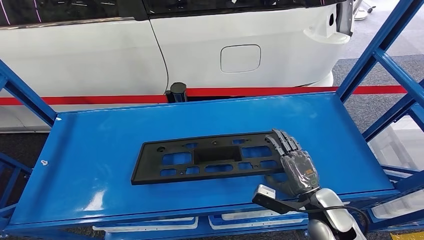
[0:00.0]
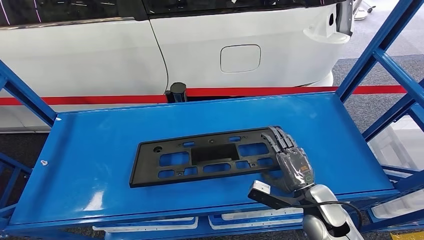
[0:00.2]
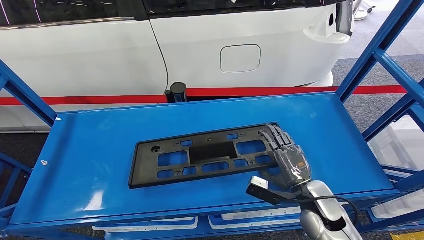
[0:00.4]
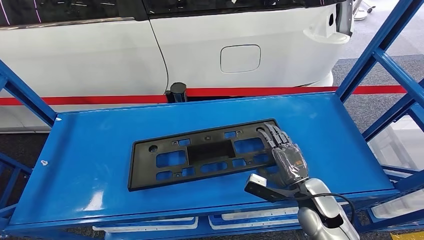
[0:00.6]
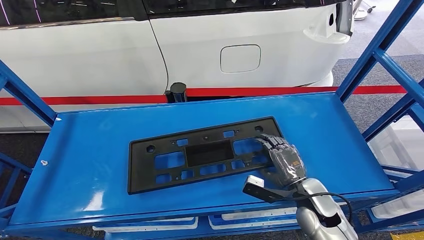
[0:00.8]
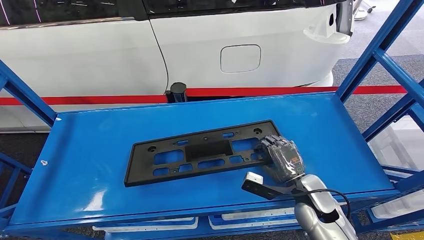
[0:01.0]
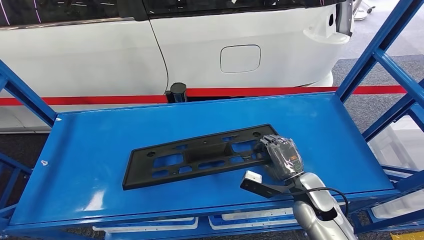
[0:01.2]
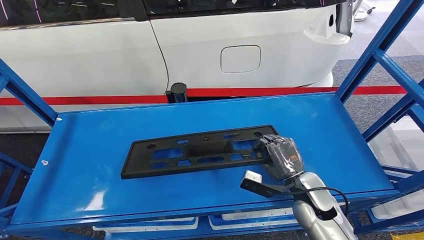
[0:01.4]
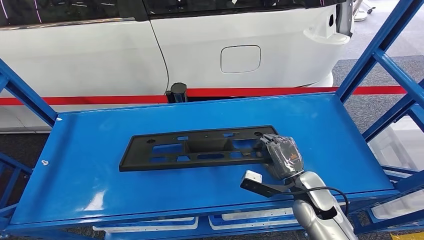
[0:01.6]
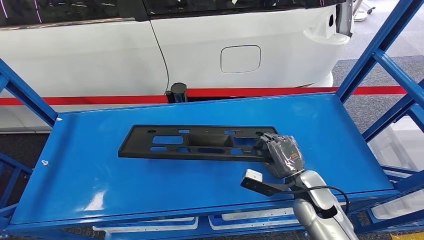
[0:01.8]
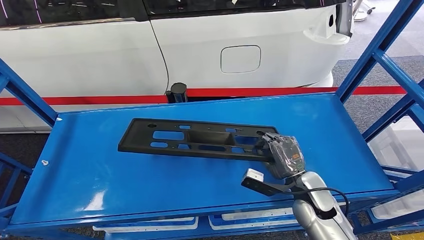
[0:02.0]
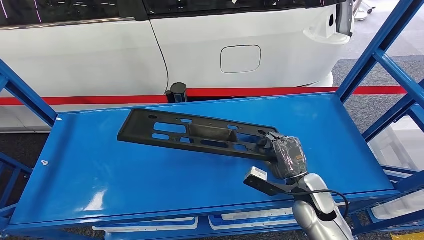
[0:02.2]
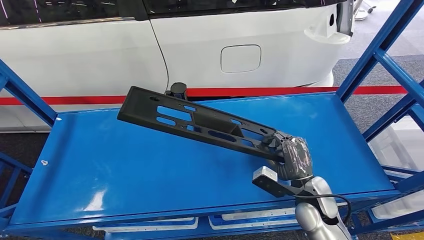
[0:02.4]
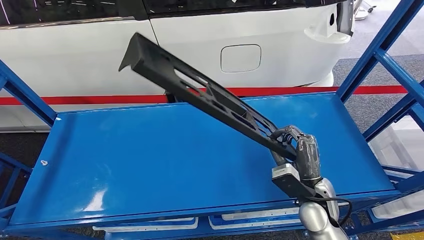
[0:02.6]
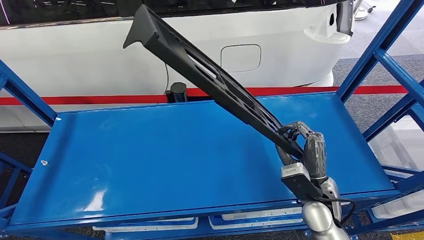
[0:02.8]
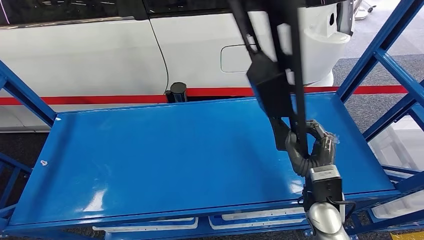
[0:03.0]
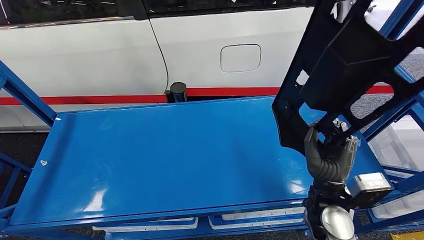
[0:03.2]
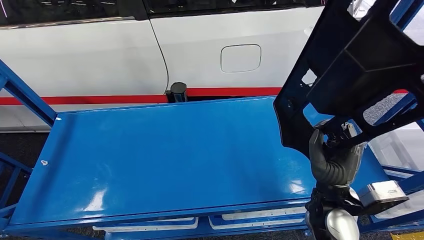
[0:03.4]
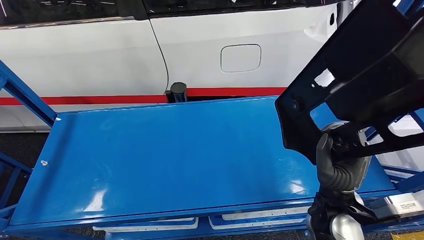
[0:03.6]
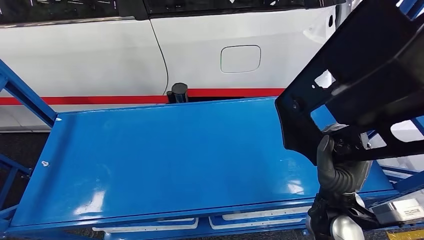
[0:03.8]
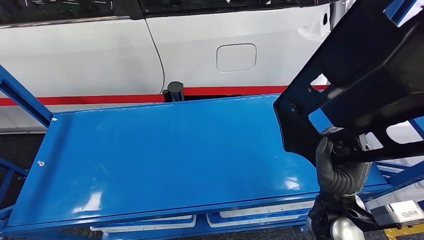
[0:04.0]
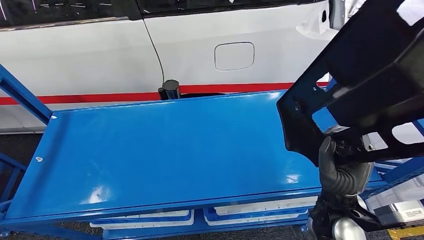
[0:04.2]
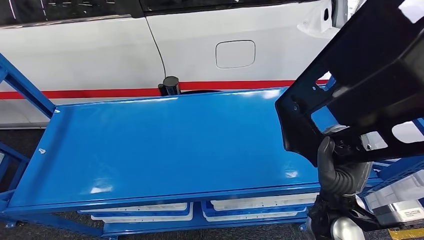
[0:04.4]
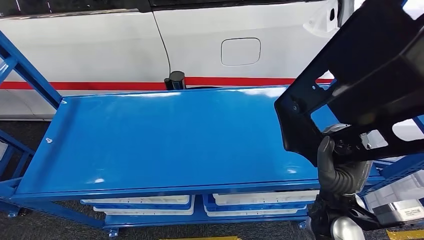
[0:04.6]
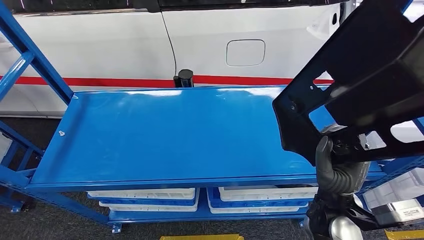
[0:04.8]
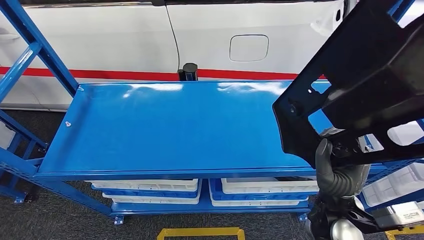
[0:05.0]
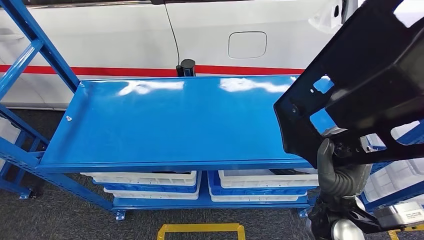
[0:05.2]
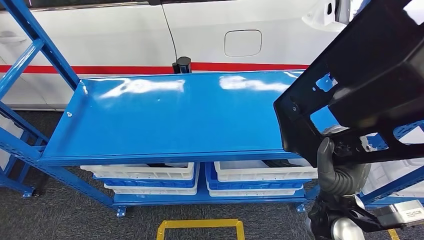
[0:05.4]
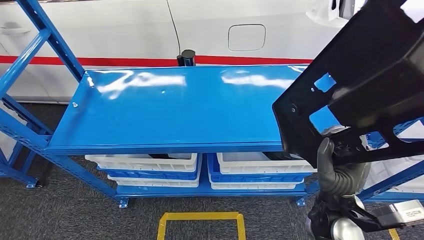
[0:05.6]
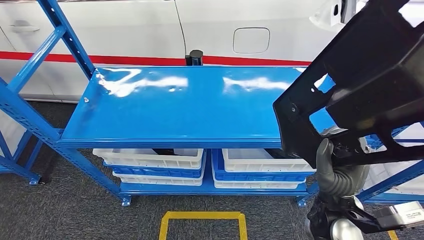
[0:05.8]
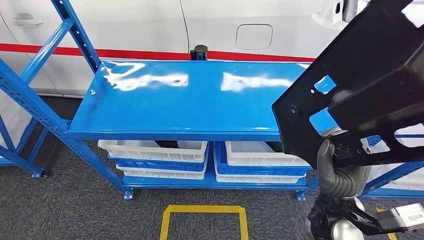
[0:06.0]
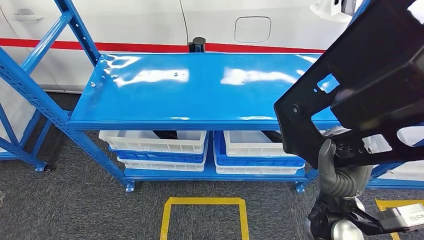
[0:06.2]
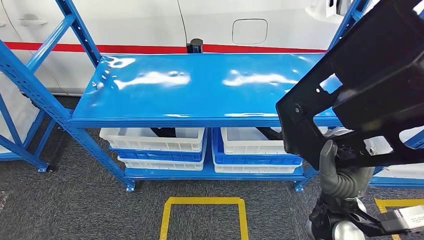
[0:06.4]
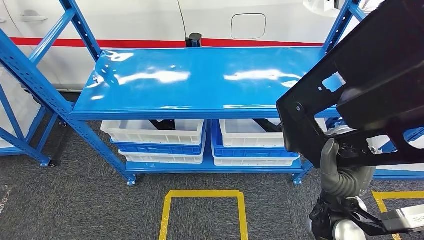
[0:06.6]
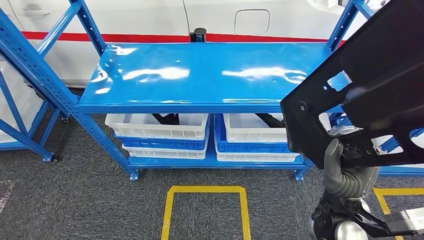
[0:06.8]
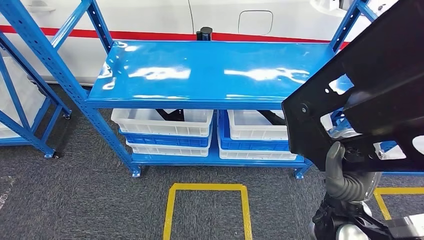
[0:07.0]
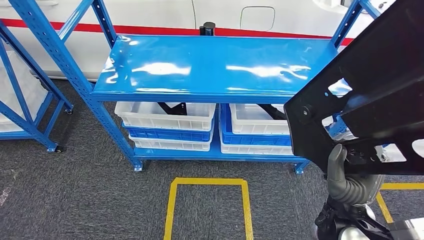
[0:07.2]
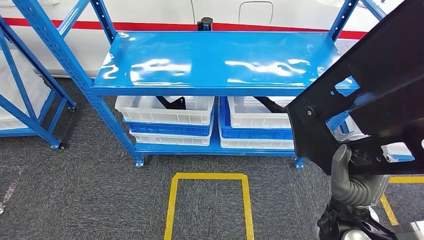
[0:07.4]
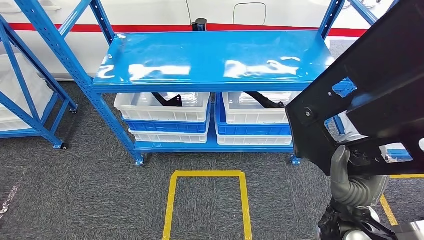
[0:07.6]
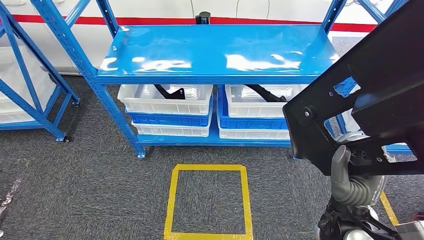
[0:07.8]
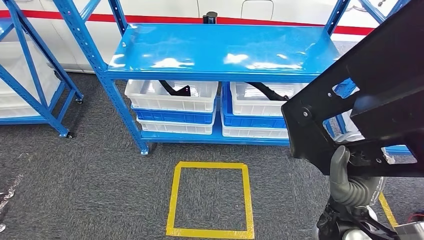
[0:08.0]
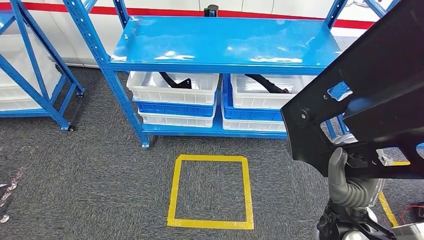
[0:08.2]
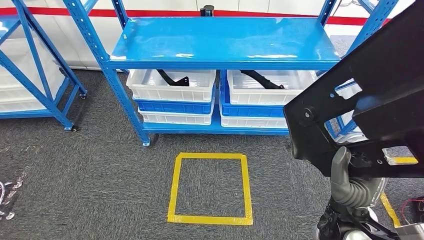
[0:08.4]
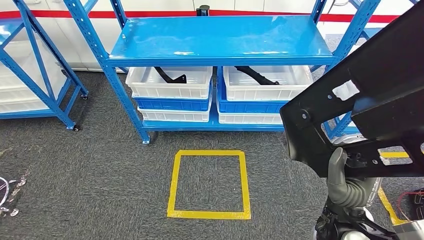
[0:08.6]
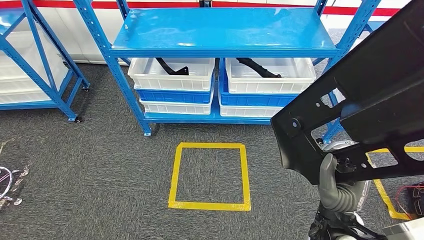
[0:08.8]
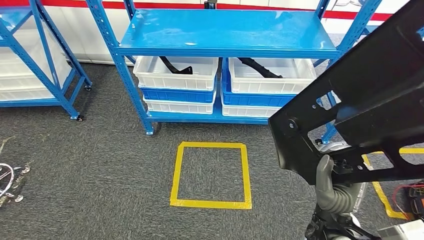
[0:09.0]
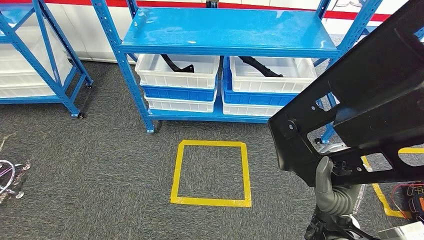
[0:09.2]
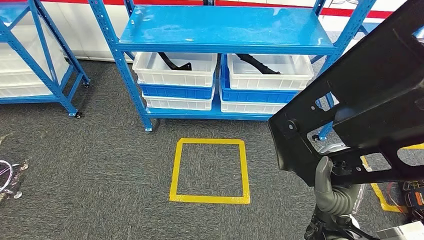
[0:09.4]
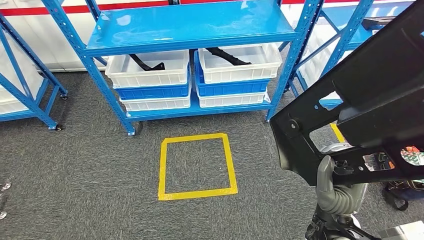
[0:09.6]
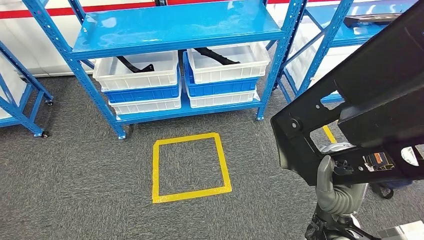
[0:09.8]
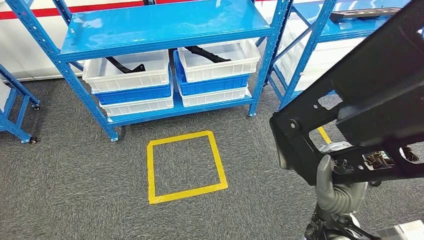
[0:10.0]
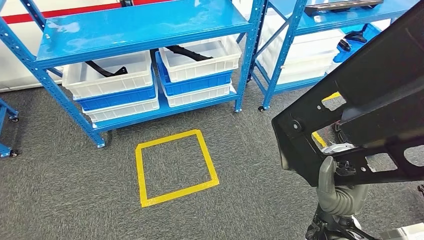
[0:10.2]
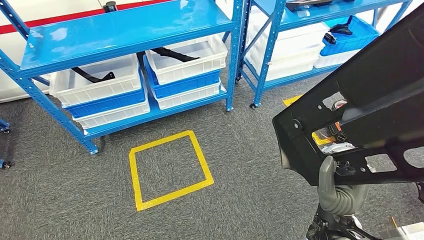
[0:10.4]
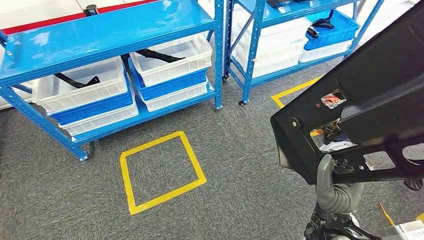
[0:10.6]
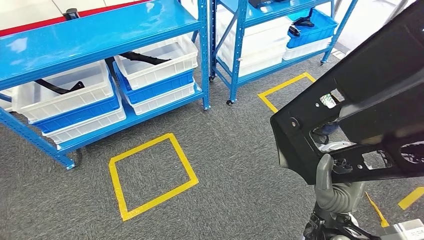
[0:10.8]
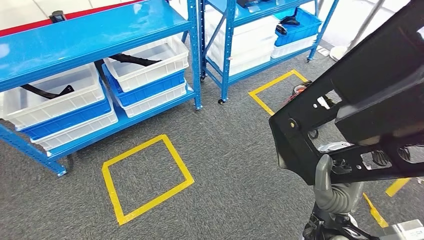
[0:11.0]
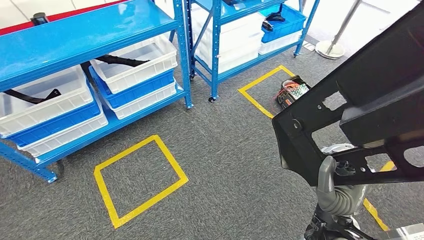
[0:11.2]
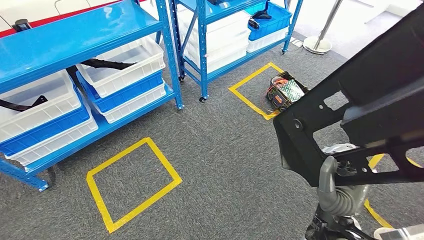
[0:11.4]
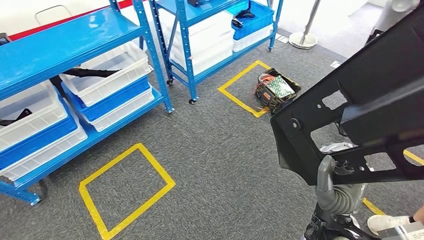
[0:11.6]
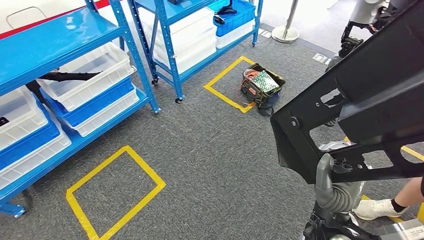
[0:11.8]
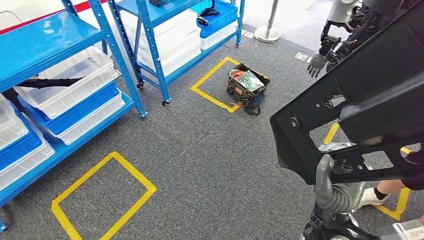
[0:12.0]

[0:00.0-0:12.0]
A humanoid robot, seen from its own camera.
Step, 0.0 to 2.6 s: Pick up the large material from the shelf.
0.0 to 1.6 s: The hands make only small movements.

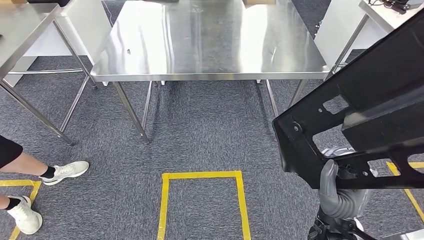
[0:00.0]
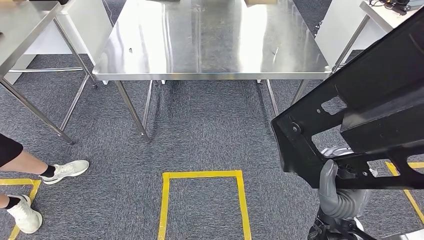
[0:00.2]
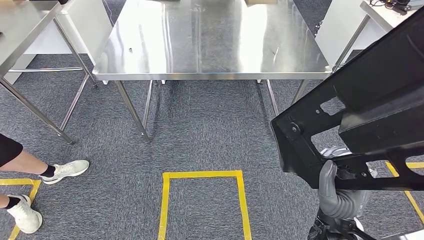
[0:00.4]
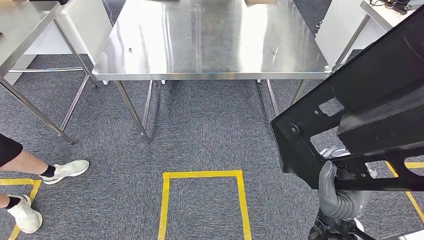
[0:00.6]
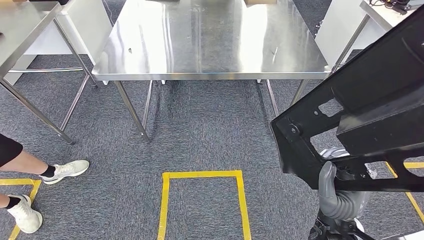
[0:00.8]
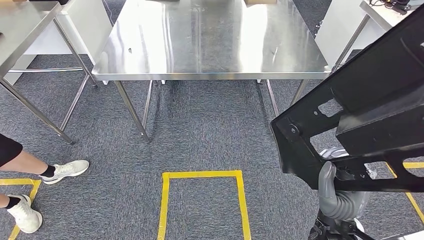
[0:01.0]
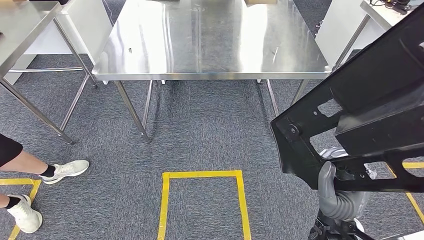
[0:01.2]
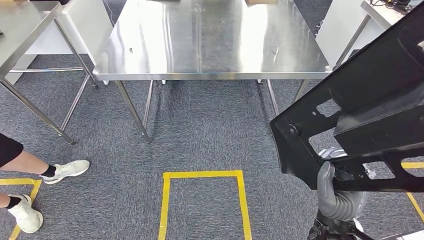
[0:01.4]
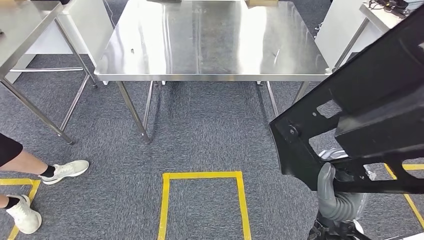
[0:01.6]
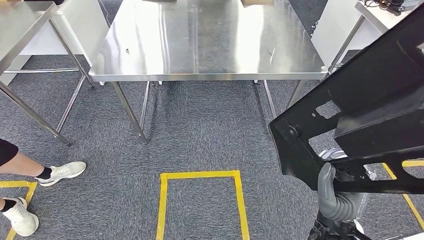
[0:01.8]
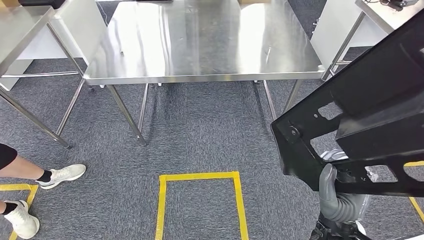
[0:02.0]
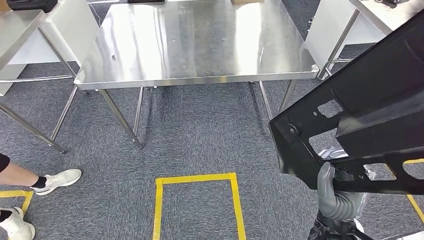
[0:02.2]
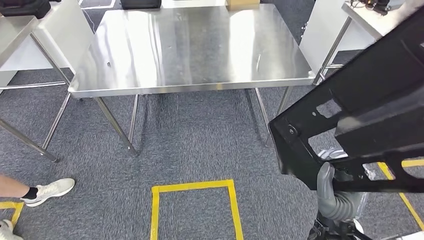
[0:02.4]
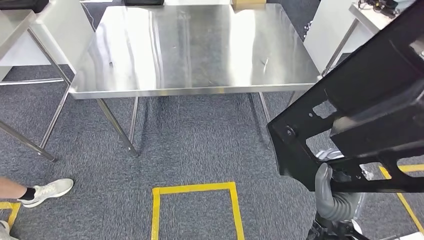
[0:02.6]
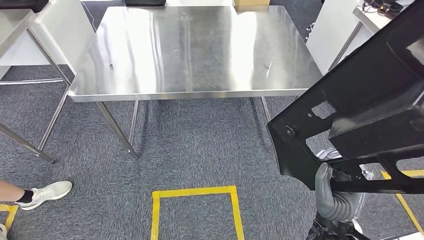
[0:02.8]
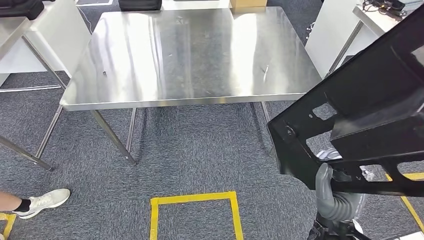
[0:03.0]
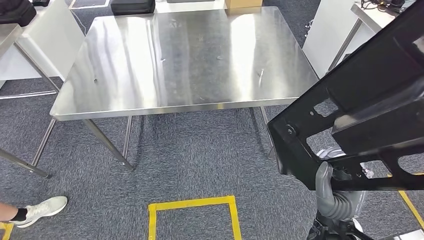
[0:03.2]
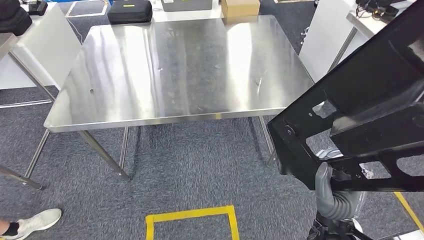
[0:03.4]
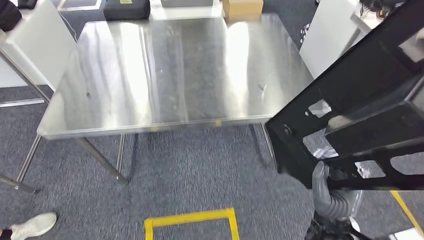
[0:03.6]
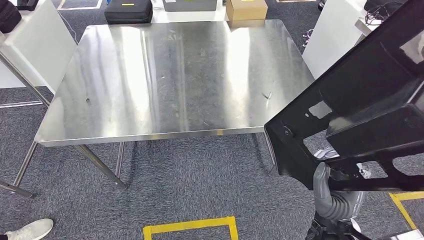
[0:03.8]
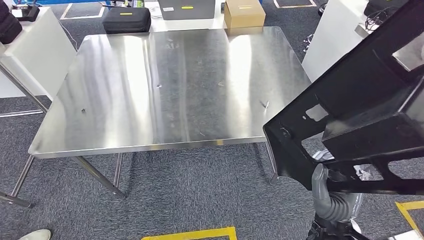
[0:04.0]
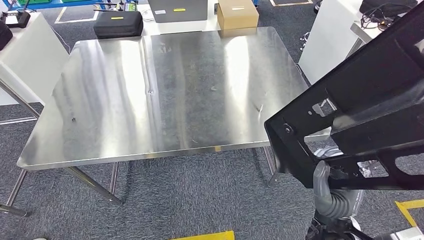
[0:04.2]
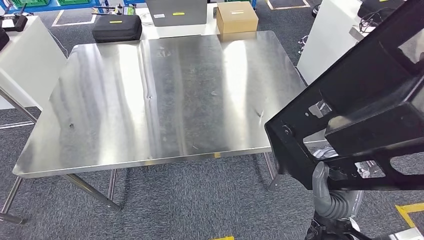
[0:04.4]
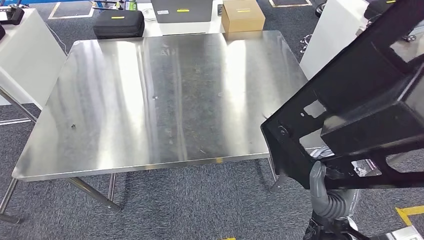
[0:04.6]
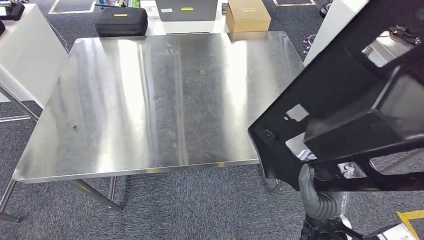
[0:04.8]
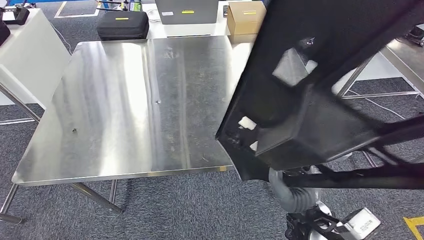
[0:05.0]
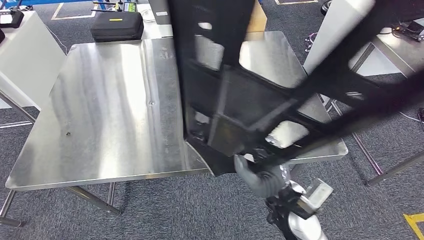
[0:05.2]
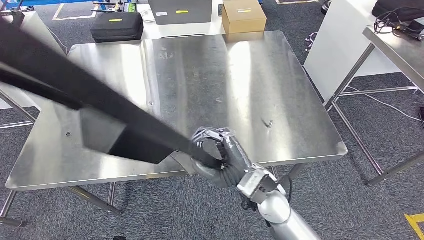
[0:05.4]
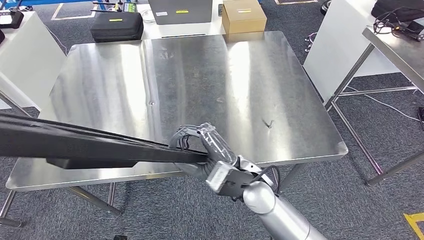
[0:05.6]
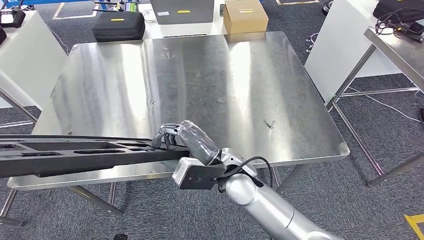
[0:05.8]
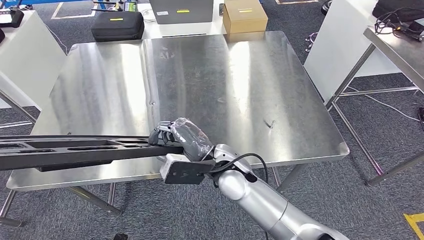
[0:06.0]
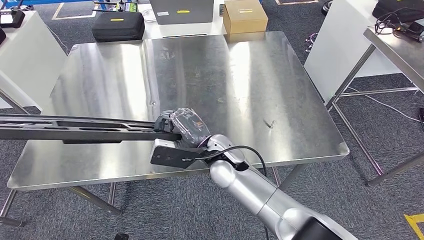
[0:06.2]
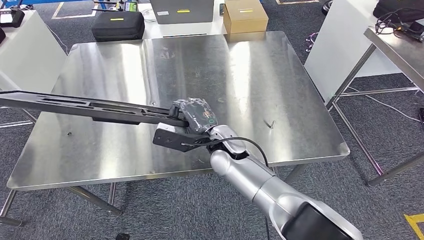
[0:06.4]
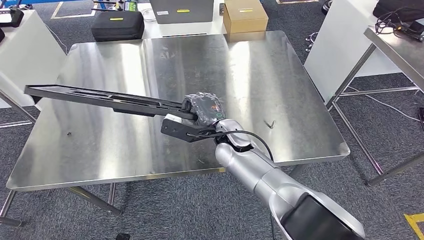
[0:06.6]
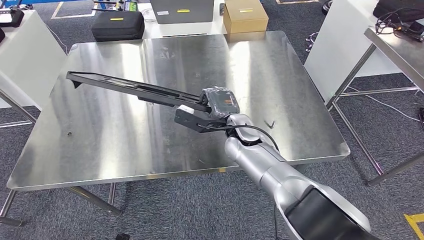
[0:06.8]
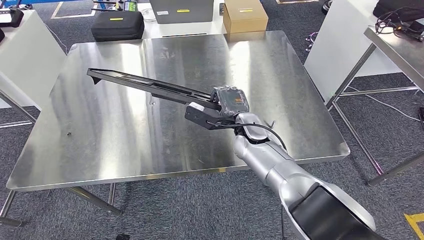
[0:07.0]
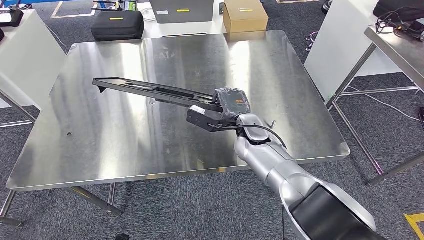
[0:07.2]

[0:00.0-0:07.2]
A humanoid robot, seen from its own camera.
Step, 0.0 to 4.2 s: Move the large material to the workbench.
0.0 to 1.4 s: Both hands stay about where they are.
